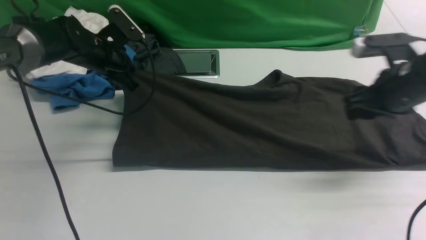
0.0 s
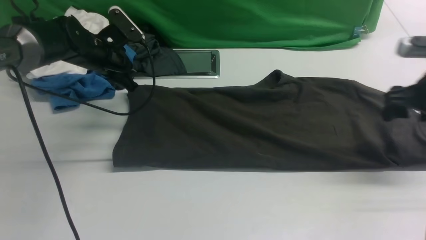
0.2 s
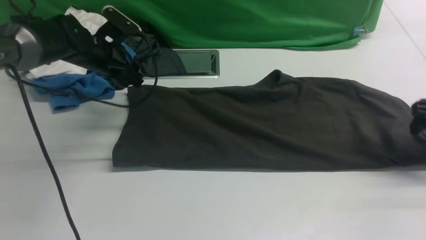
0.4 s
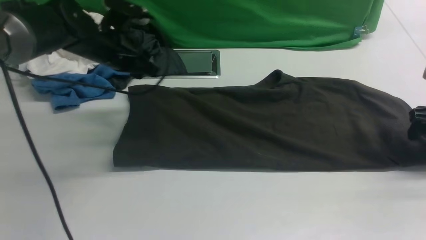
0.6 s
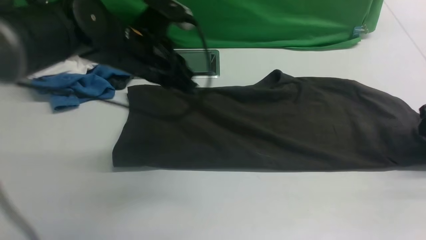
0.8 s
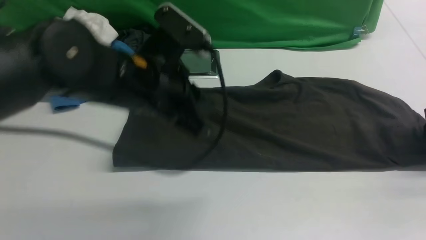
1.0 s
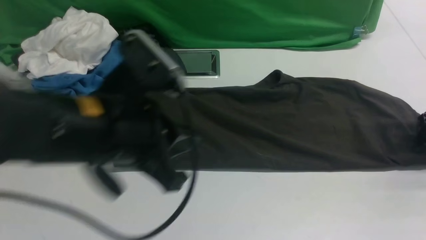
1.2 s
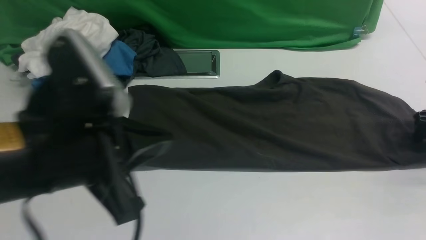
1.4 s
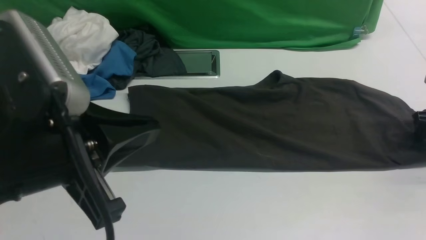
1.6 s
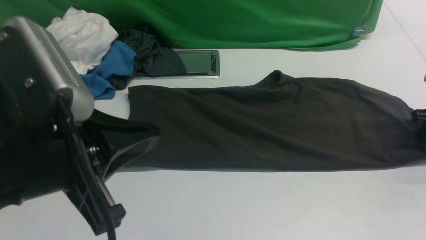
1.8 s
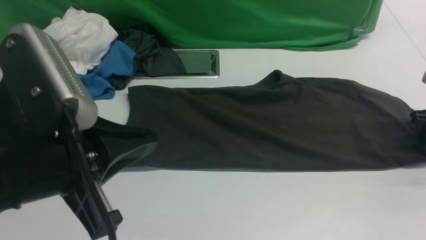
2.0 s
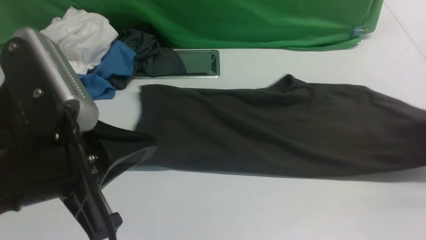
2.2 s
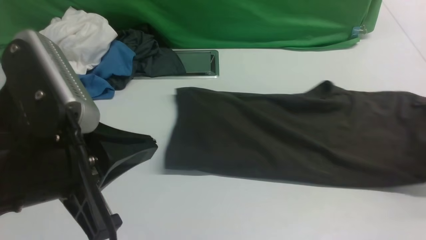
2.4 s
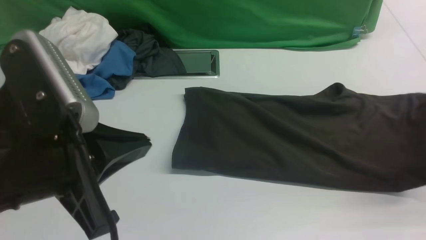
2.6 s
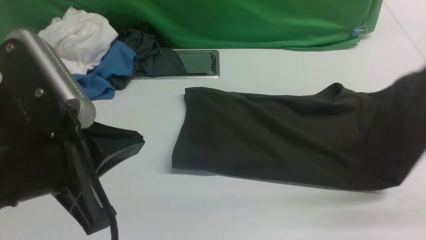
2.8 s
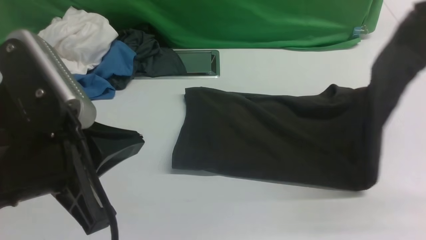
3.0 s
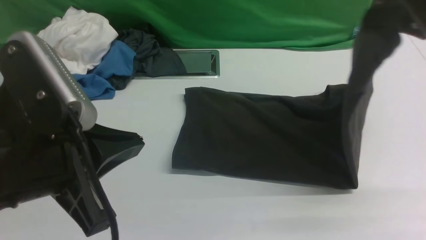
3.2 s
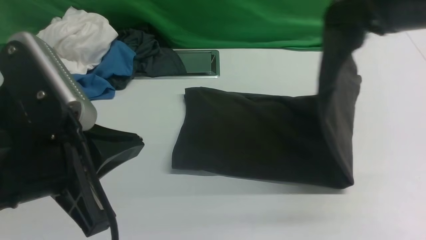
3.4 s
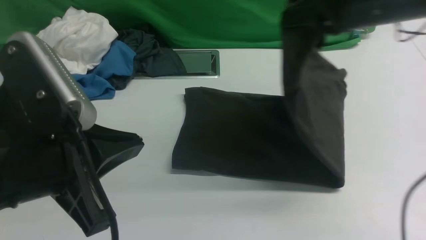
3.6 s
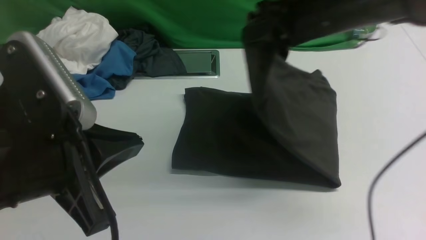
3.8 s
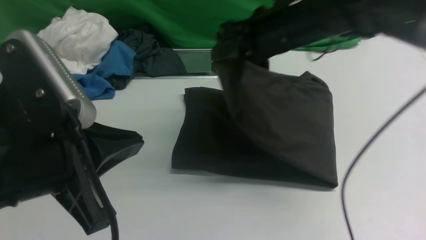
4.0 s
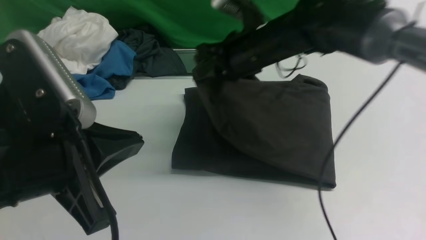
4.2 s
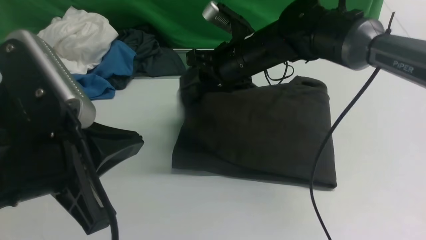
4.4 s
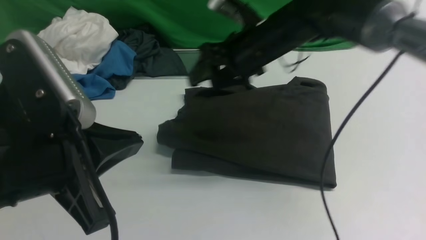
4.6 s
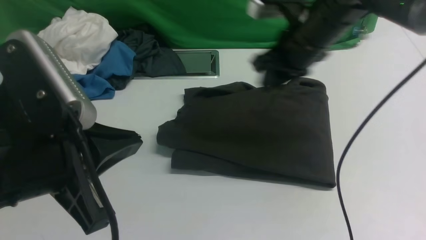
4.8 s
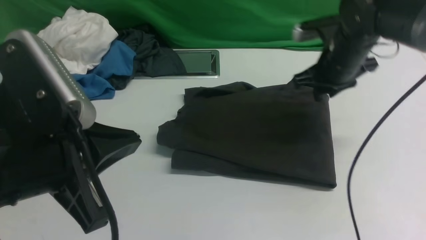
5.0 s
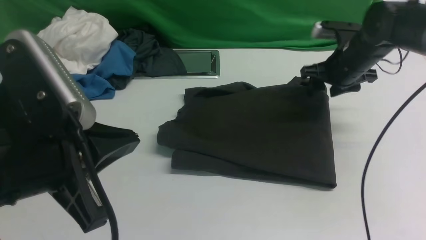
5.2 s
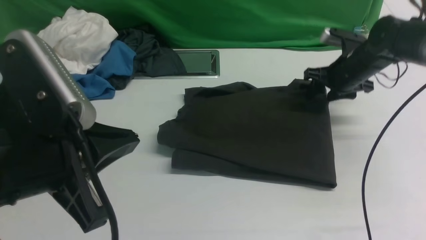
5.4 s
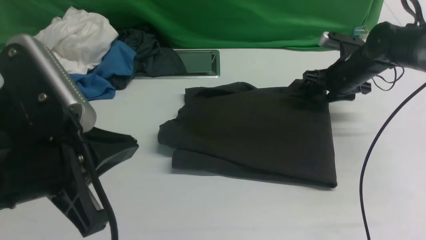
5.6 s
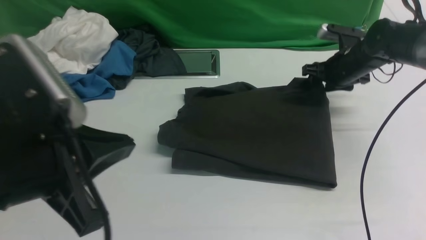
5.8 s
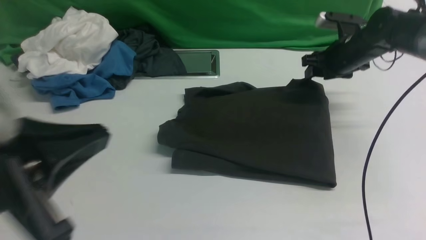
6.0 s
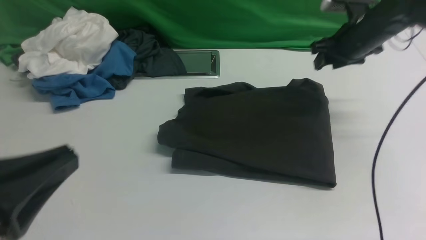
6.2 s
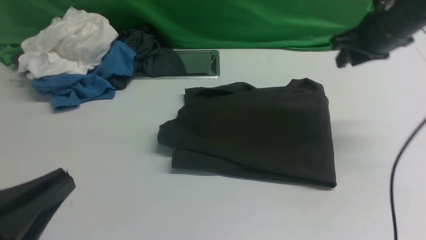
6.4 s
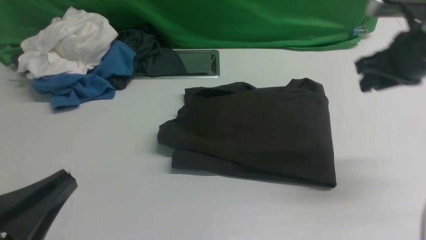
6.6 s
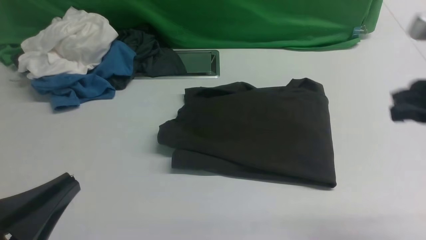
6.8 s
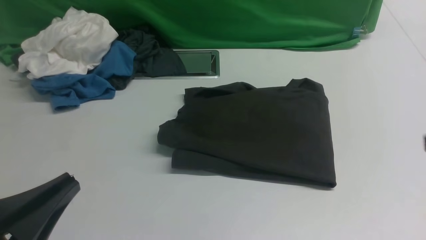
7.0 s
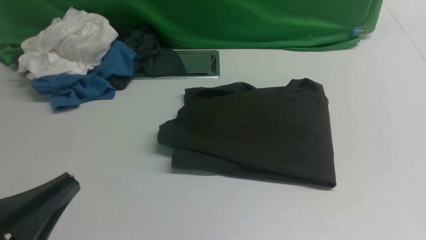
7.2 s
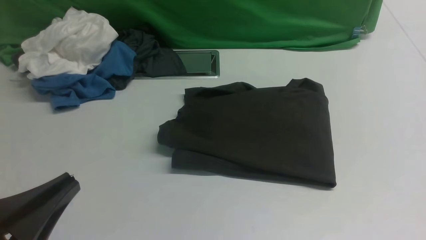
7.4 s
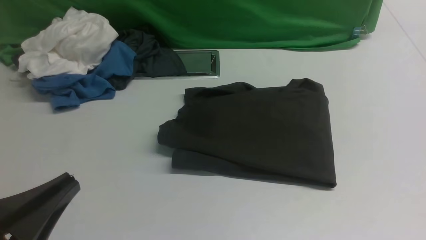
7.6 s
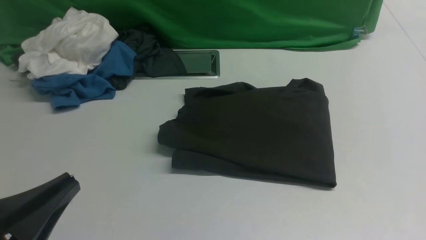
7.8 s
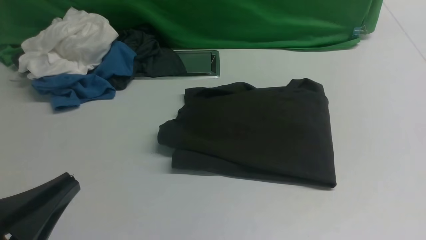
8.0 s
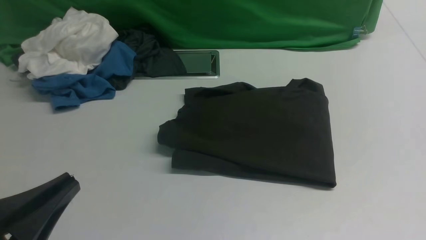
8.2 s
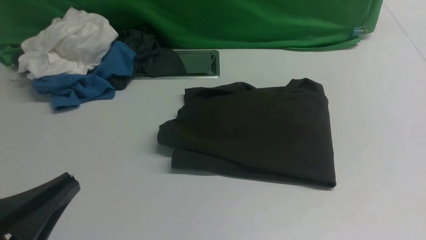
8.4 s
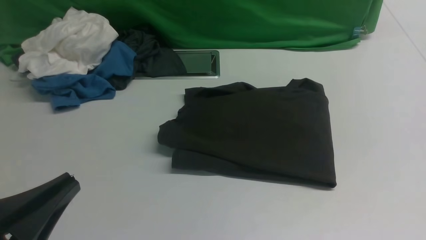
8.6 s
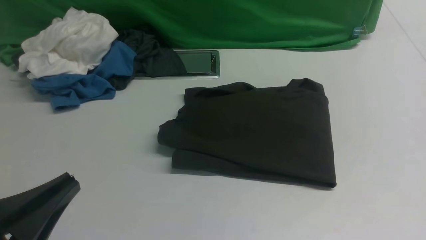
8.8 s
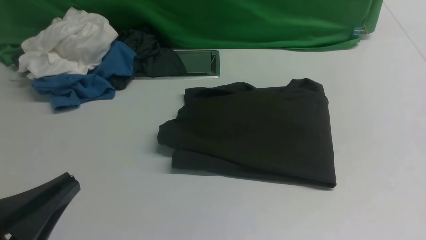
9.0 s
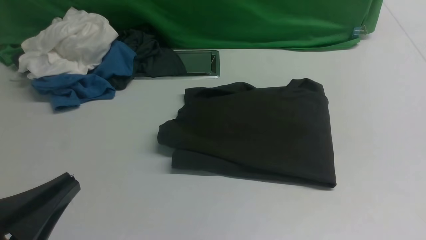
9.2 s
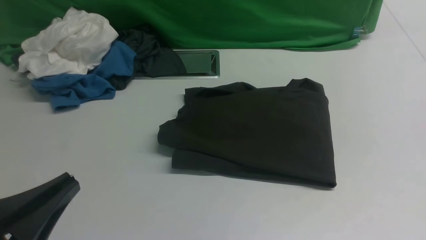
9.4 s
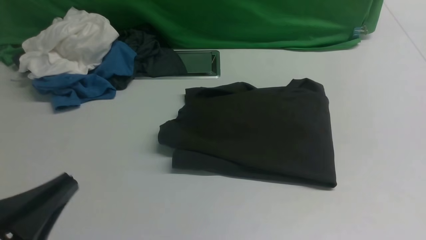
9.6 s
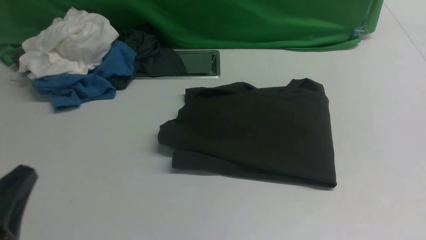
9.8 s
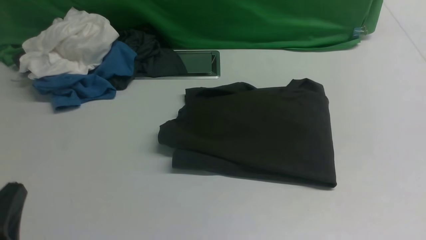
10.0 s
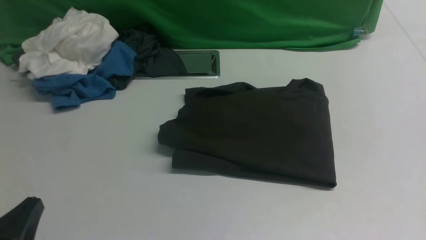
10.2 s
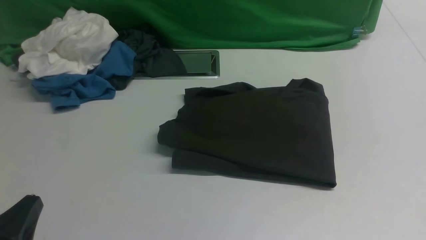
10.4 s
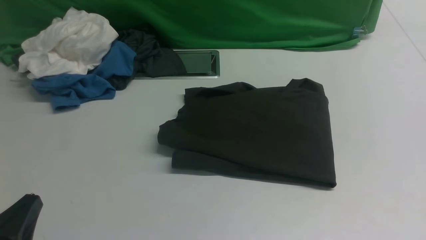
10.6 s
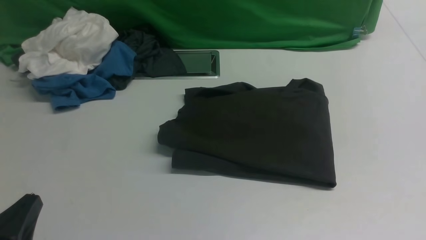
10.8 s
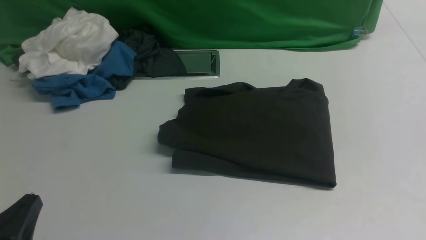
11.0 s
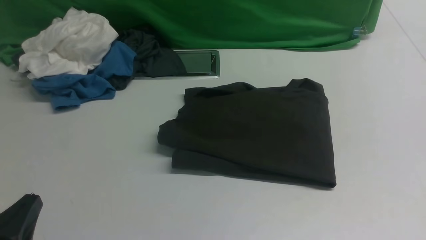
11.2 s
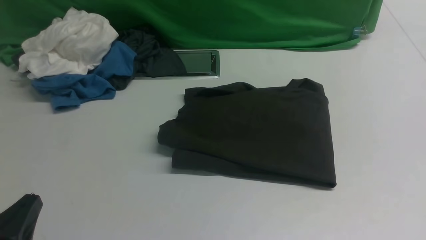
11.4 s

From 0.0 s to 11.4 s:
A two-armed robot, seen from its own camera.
Step, from 0.8 s to 1.8 s: use the right arm to clamp the right edge of the fabric.
Step, from 2.0 s to 4.6 s: use the right arm to drag the right edge of the fabric to the left and folds it over the left edge.
From 0.0 s to 1.4 s: The left gripper travels backward and upward by approximately 35 cm, and opens, then closes again. Meanwhile the right gripper shifts about 20 cm to the right and downward.
From 1.4 s to 2.8 s: The right gripper goes some 20 cm upward and to the left, and closes its fingers.
From 2.8 s to 4.2 s: The right gripper moves to the left and forward, some 30 cm.
From 4.2 s to 5.6 s: The right gripper goes about 20 cm to the right and downward, and opens.
From 5.6 s to 7.2 s: The left gripper heads downward, backward and to the left, covering about 10 cm. Meanwhile the right gripper heads backward and upward, covering approximately 40 cm, and closes.
From 8.6 s to 10.0 s: The left gripper goes roughly 5 cm downward.
From 10.0 s to 11.4 s: There are only small adjustments of the grippers.
